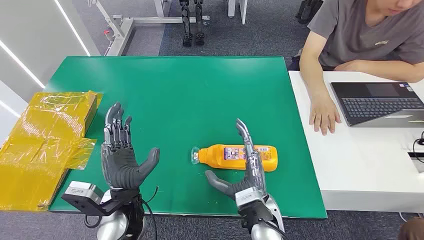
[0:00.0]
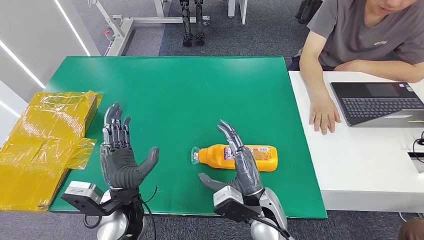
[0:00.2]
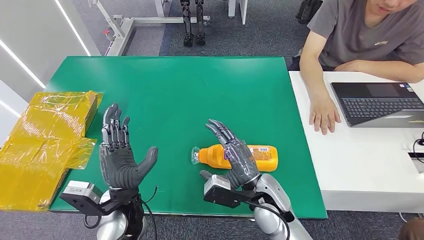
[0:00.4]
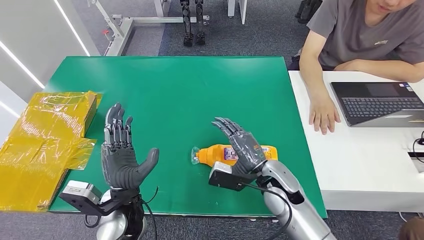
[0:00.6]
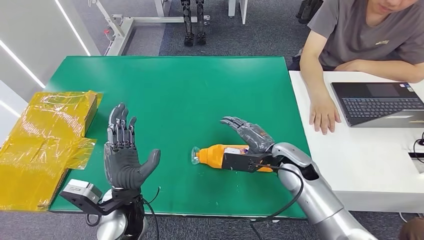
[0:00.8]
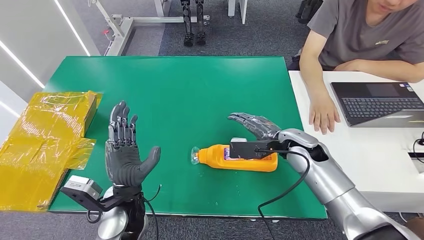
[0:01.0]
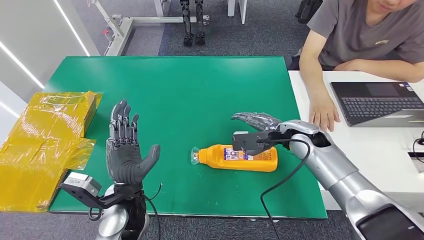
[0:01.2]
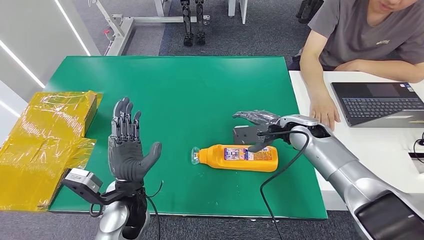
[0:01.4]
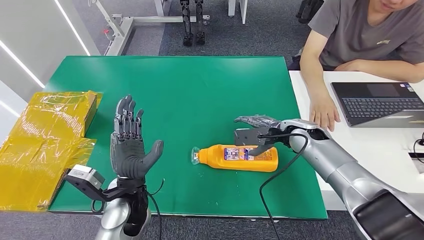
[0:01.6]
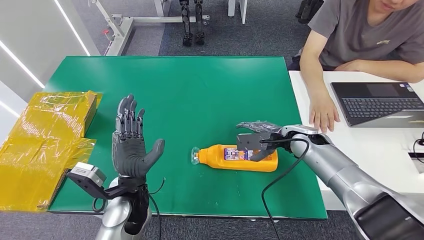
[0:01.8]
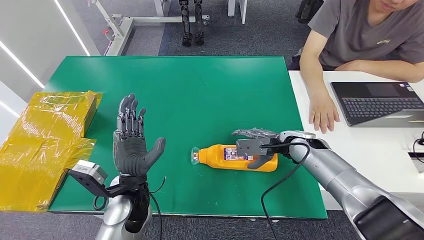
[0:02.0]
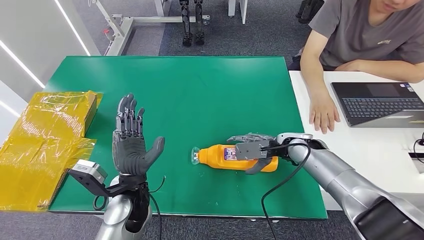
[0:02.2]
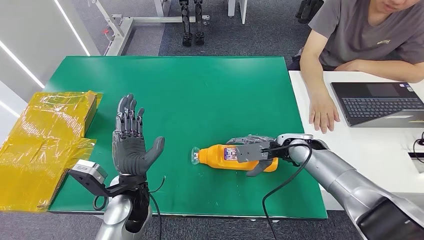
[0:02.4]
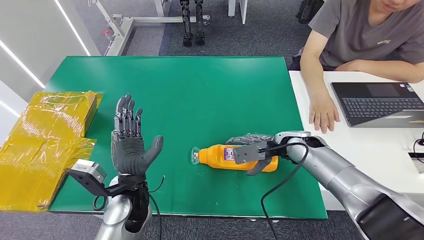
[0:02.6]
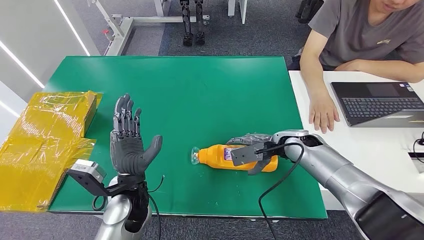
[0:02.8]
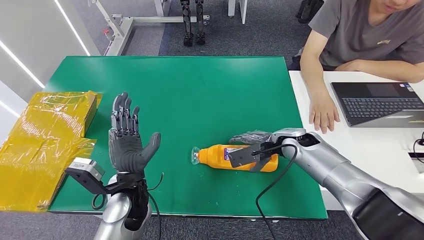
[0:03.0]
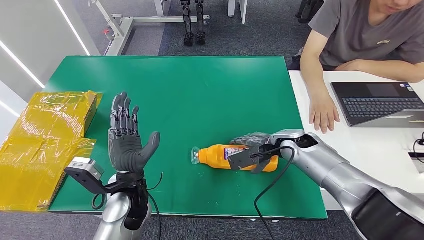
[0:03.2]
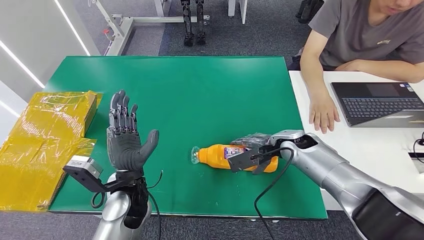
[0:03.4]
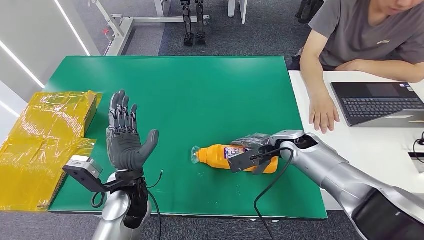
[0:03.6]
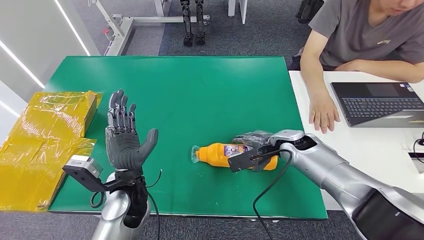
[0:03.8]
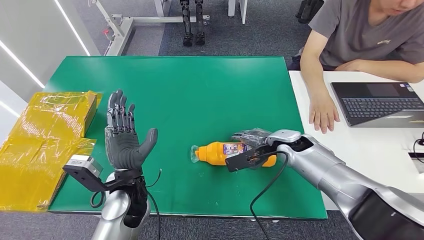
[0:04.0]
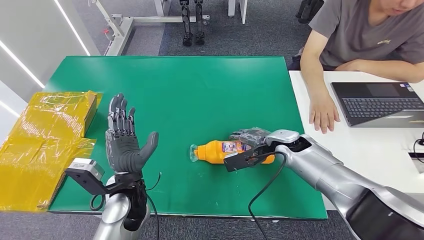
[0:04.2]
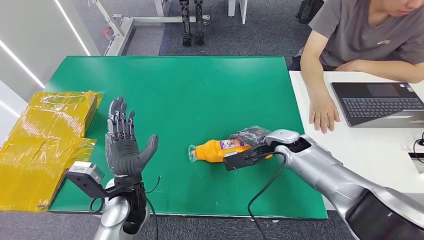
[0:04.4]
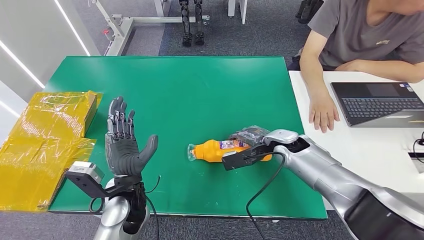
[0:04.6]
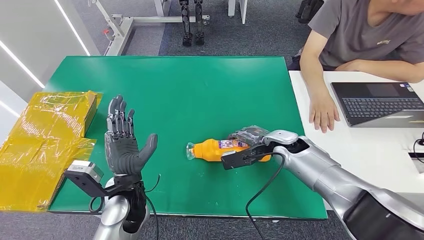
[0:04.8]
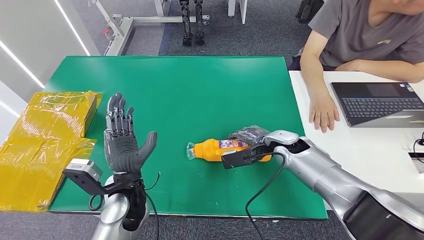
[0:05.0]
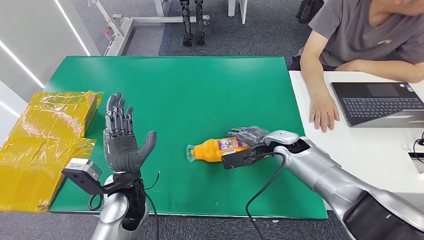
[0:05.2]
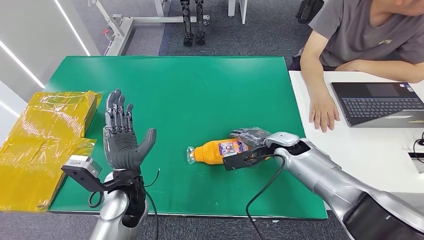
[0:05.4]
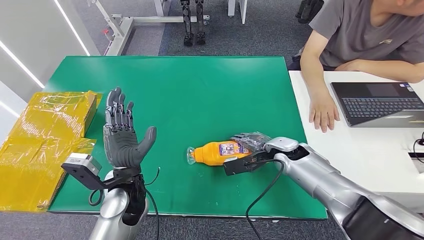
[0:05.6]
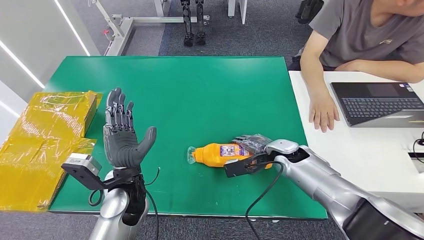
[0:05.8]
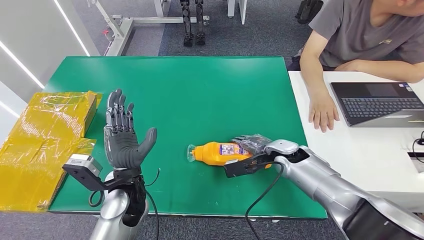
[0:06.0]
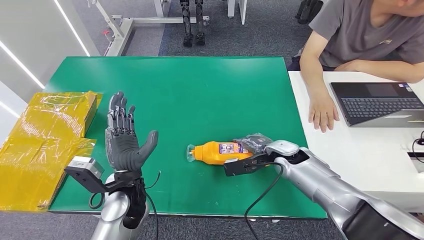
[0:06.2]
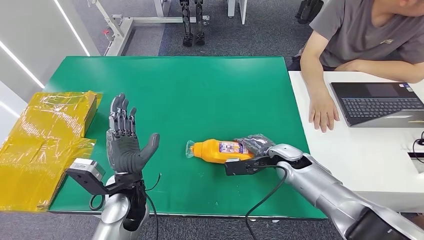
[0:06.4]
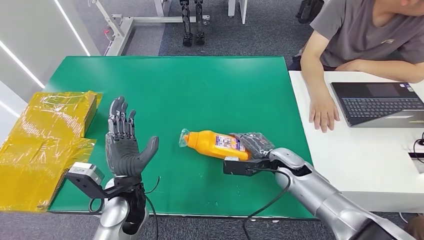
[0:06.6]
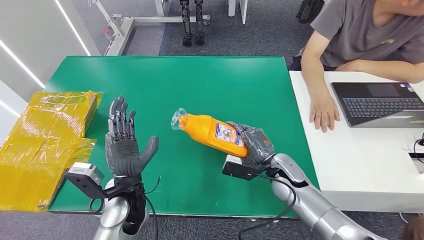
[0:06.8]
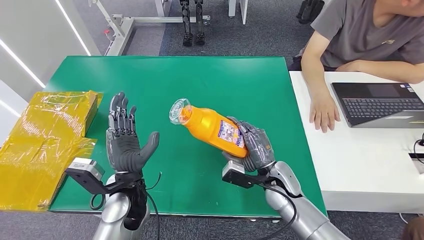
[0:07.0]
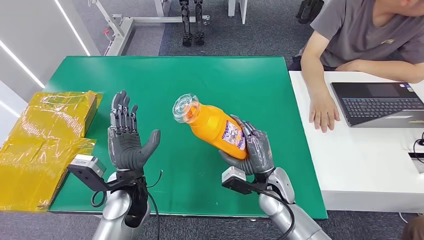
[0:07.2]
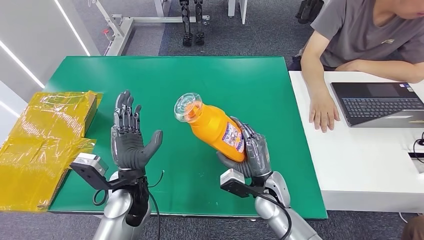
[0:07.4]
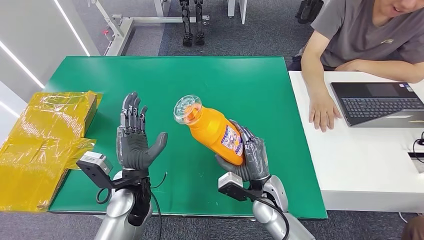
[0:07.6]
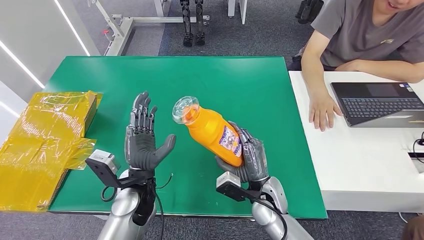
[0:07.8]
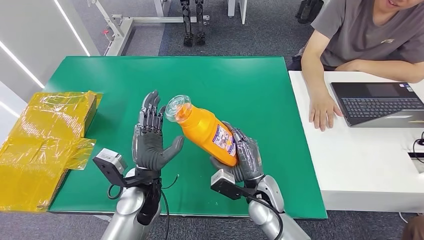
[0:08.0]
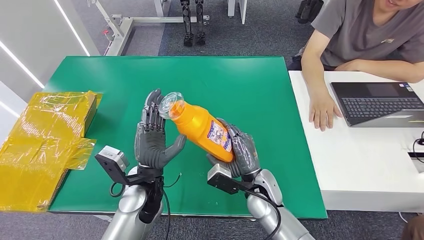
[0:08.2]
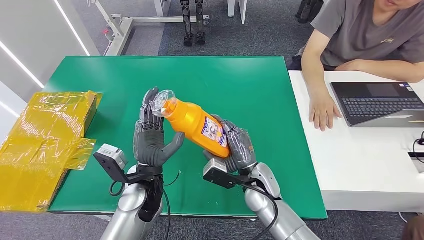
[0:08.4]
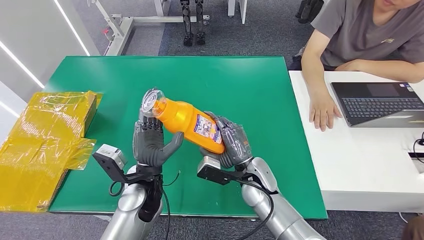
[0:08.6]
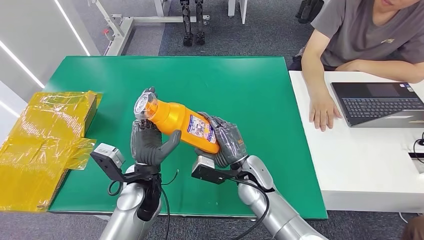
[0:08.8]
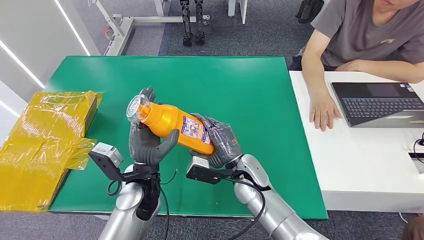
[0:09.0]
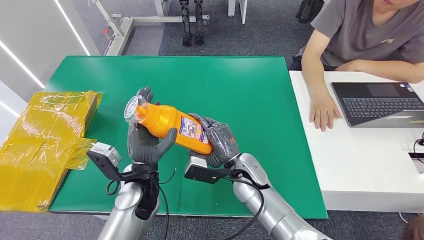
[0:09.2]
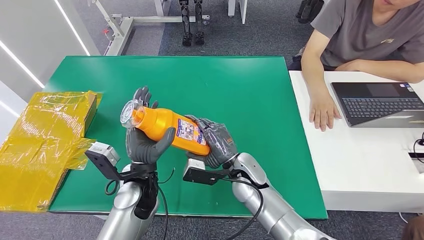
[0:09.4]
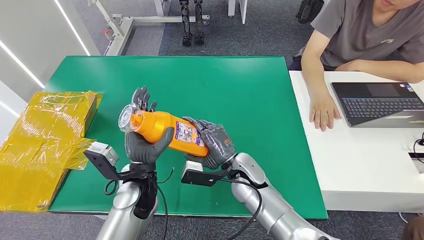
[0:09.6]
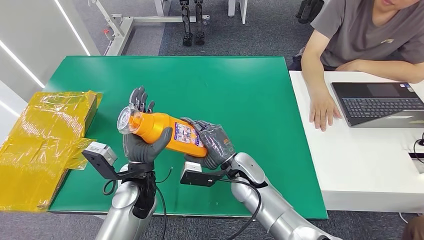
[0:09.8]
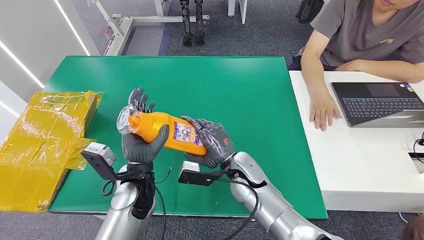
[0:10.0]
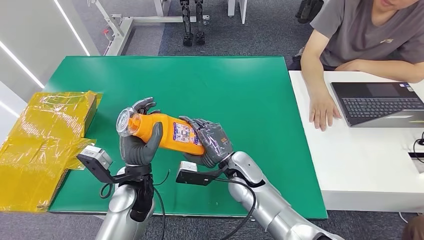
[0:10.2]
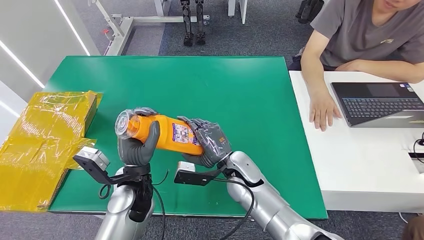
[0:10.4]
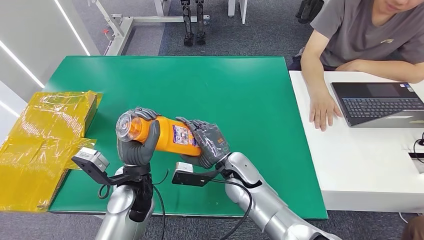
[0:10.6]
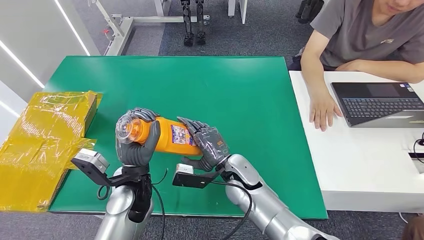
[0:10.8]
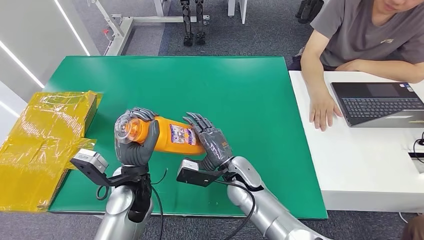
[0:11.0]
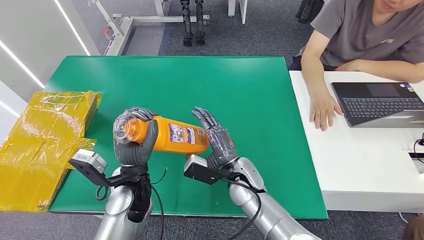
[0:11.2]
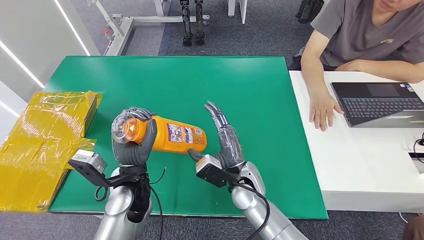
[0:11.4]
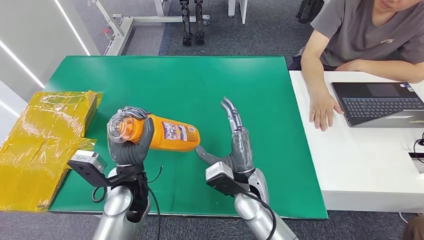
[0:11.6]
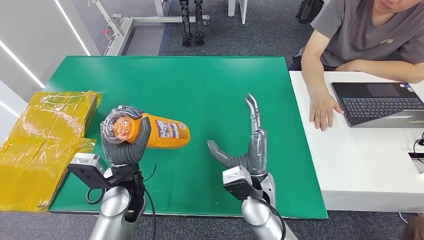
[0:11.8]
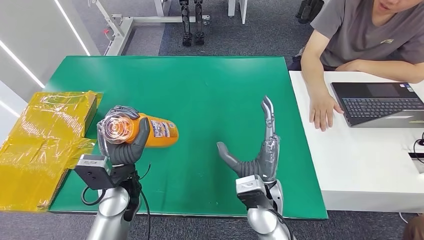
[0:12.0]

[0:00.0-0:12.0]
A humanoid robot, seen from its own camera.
Step, 0:00.0 to 0:10.6: Pick up the bottle from the table.
0:01.6 to 0:04.4: There are only small adjustments of the hands.
0:04.4 to 0:06.0: The hands move only a little.
0:06.0 to 0:07.6: The right hand is displaced backward and to the left by approximately 15 cm.
0:07.6 to 0:09.0: The right hand shifts by some 5 cm.
0:09.0 to 0:10.4: The hands move only a little.
0:10.4 to 0:12.0: The right hand moves backward, roughly 10 cm.

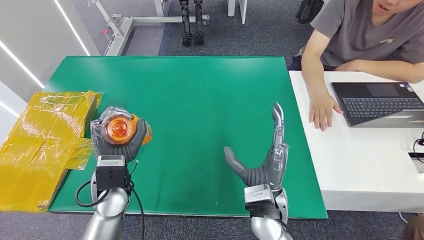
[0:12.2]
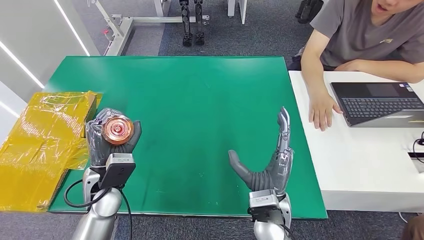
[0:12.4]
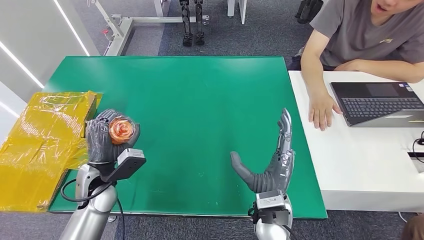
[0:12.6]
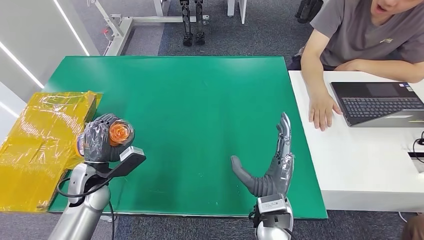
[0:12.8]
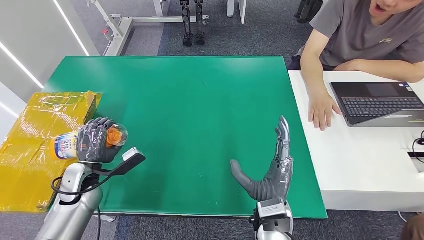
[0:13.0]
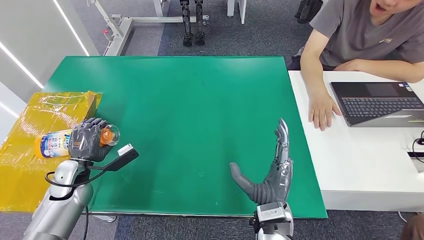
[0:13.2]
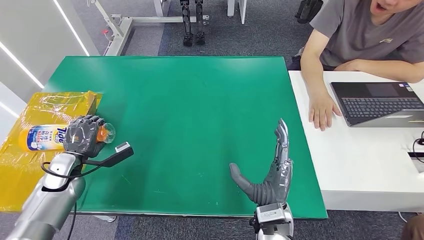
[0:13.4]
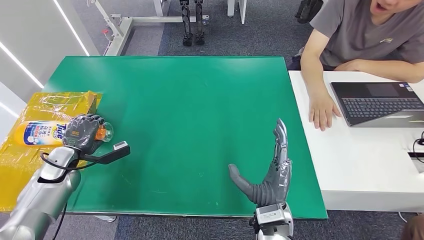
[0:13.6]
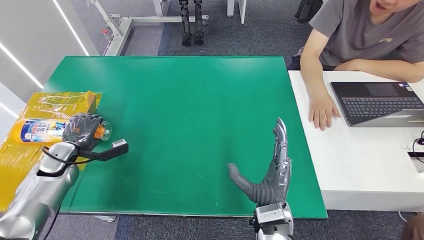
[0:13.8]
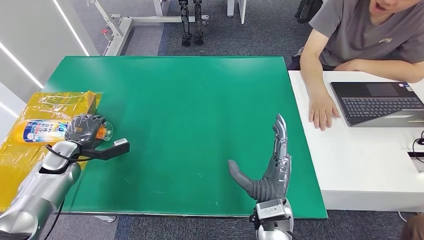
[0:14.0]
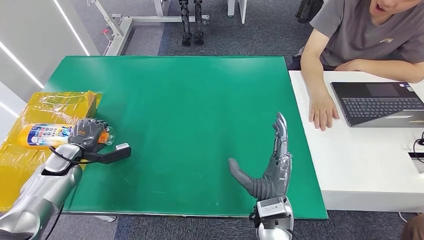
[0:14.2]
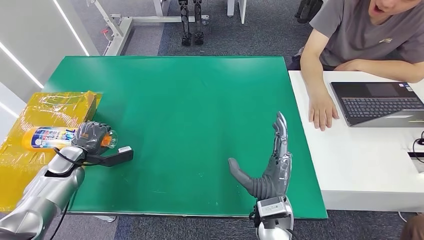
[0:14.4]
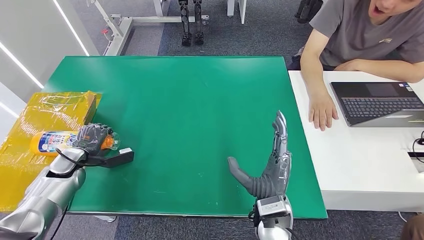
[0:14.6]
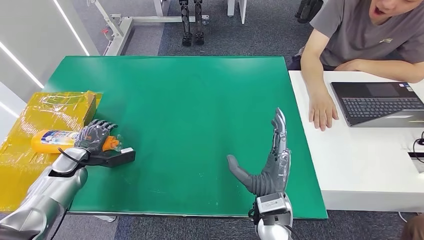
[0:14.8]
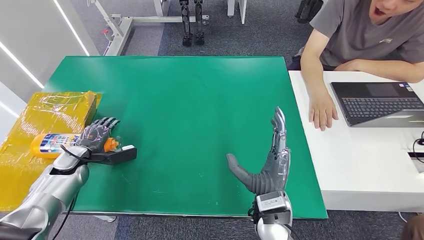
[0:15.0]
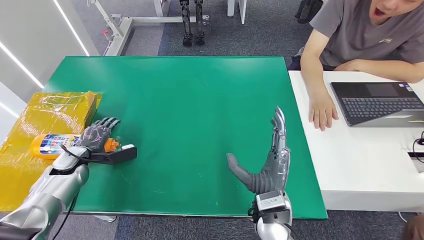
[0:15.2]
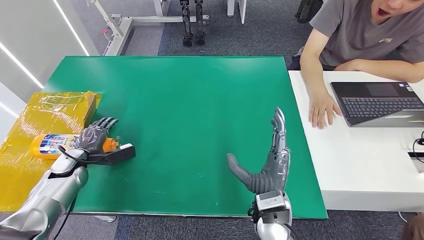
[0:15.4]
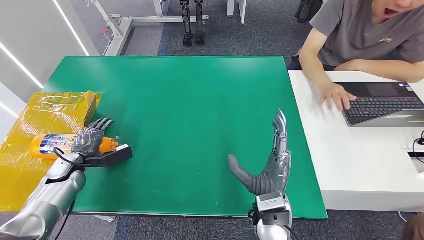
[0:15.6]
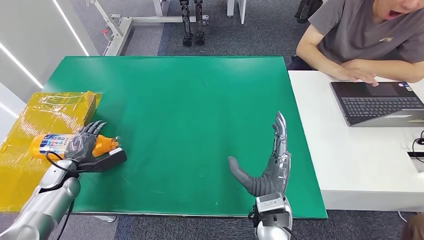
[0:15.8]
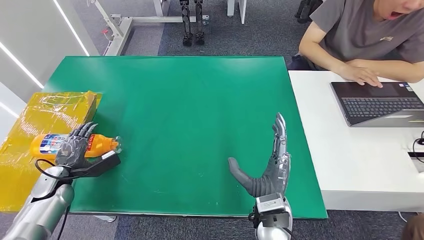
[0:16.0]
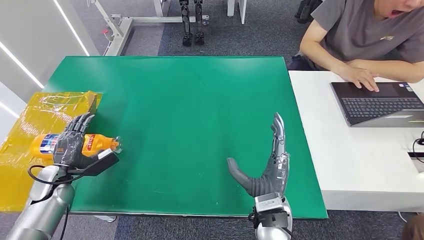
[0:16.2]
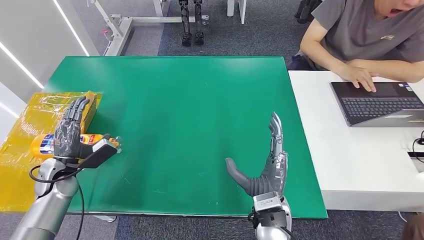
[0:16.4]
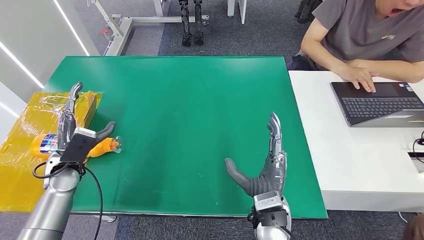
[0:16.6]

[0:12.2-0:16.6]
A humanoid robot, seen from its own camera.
Step, 0:12.2 to 0:16.6: Turn the bottle to the front side.
0:12.2 to 0:13.6: The left hand goes roughly 20 cm to the left.
0:15.2 to 0:16.6: The left hand heads upward, covering some 5 cm.
